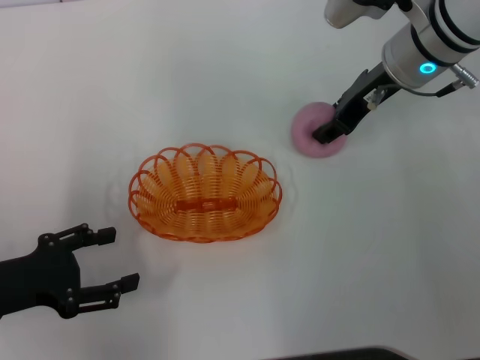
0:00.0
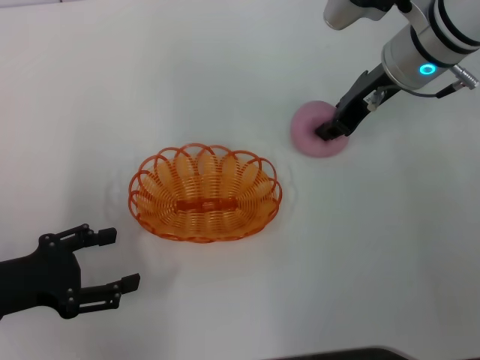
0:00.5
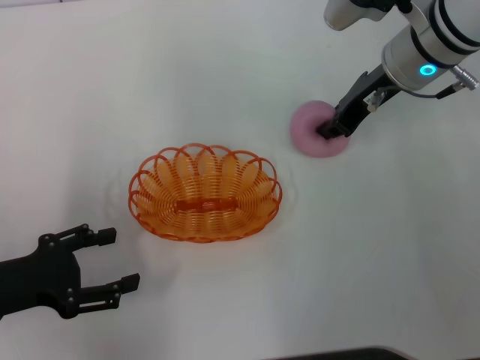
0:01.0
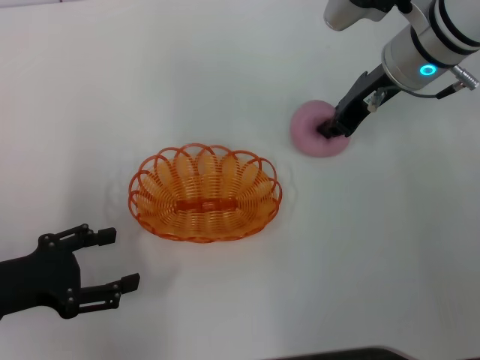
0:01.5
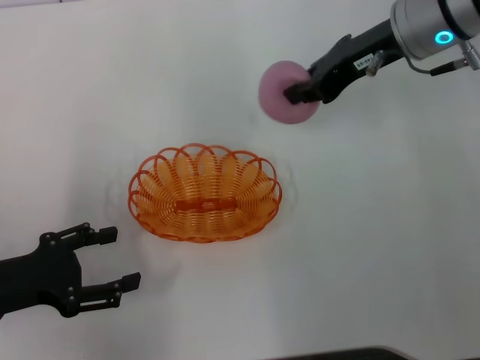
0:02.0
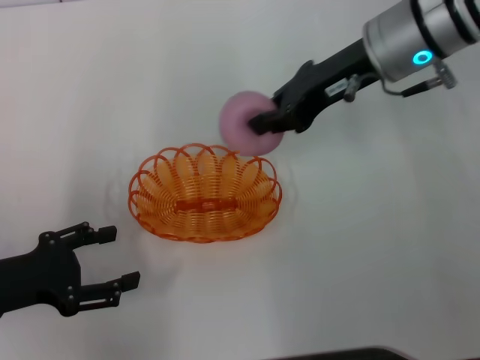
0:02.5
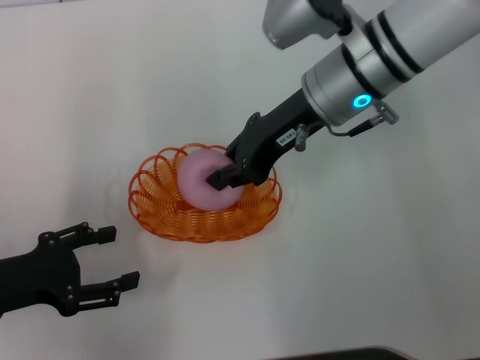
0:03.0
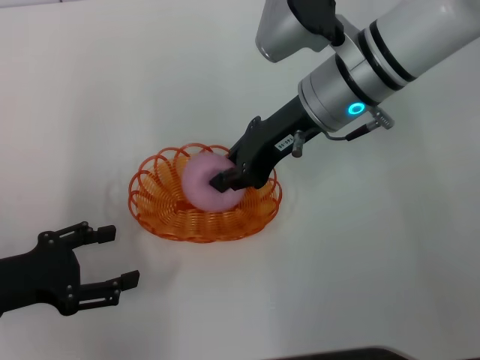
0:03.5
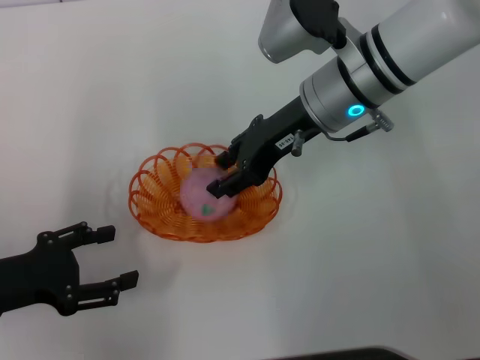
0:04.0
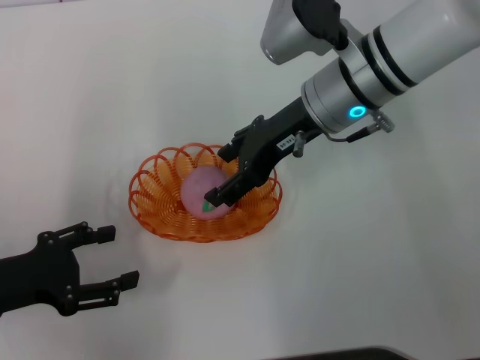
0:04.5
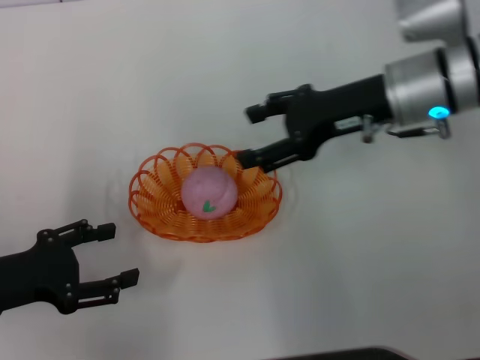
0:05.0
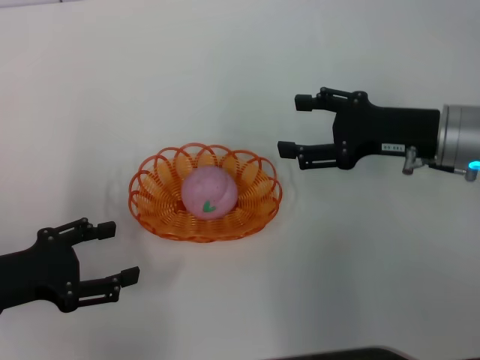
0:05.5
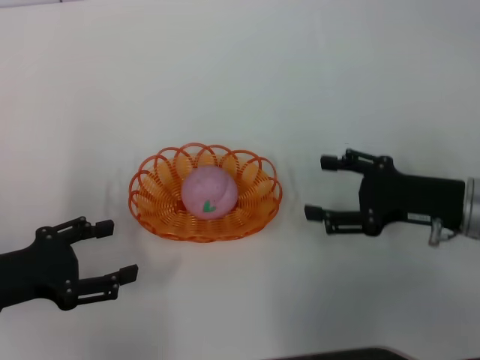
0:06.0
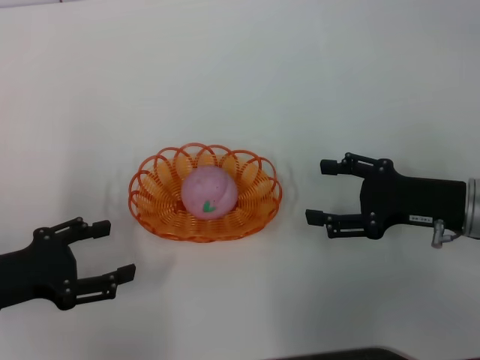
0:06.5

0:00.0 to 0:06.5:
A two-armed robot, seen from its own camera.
Step, 0:00.0 to 0:02.0: Pick up the peach with the right gripper.
Step, 0:02.5 to 0:04.5: Place the peach into the basket with the right gripper.
0:00.0 to 0:02.0: The right gripper closes its fingers.
0:02.0 to 0:04.5: The right gripper travels to the left by approximately 5 cm, and opens its fingers.
0:04.5 to 0:06.5: The right gripper moves to the right, backward and downward, approximately 20 cm.

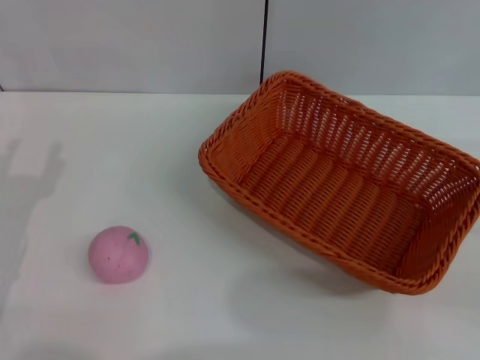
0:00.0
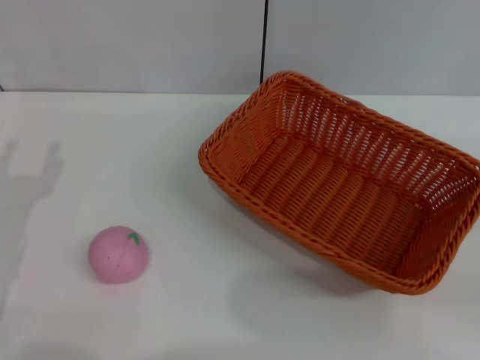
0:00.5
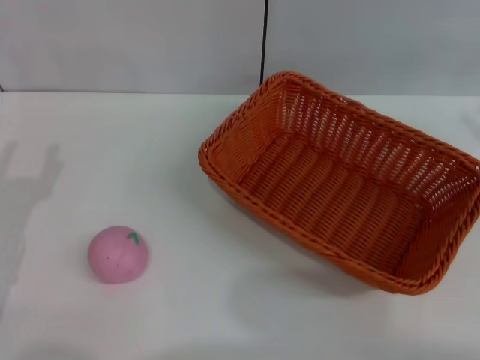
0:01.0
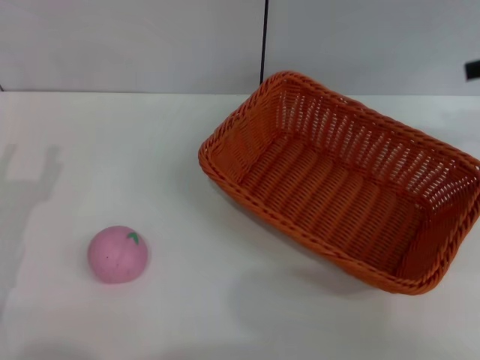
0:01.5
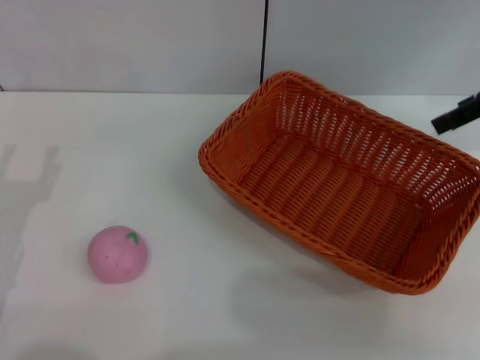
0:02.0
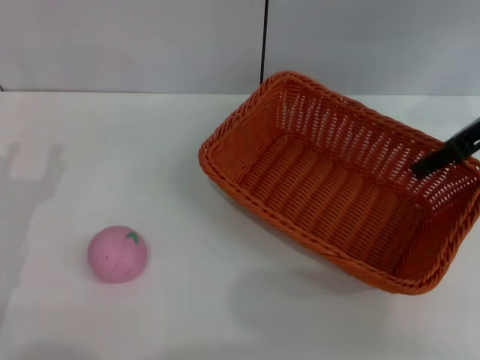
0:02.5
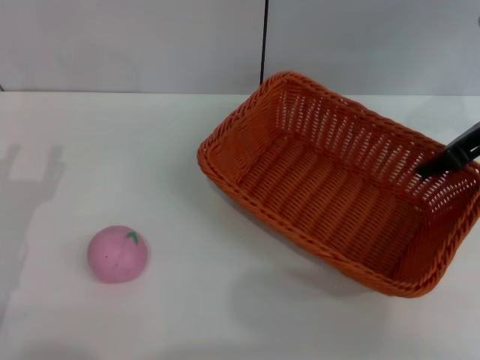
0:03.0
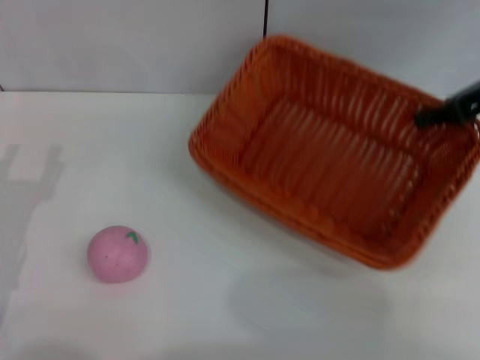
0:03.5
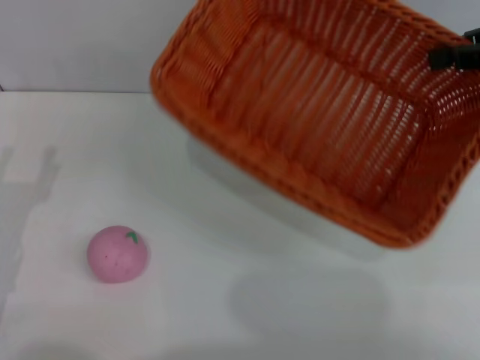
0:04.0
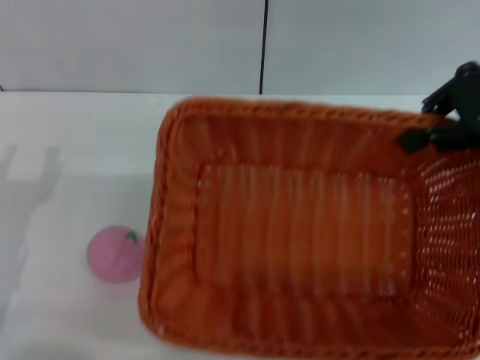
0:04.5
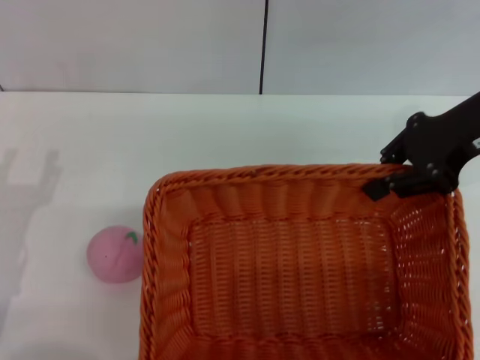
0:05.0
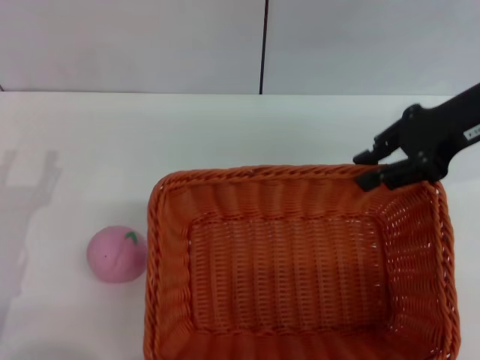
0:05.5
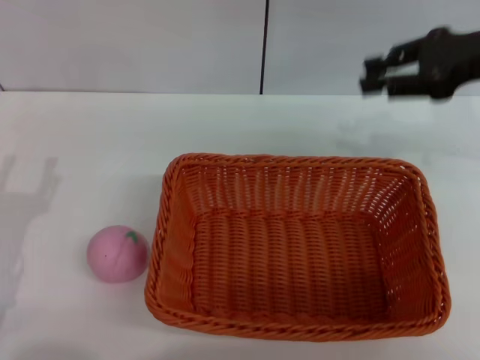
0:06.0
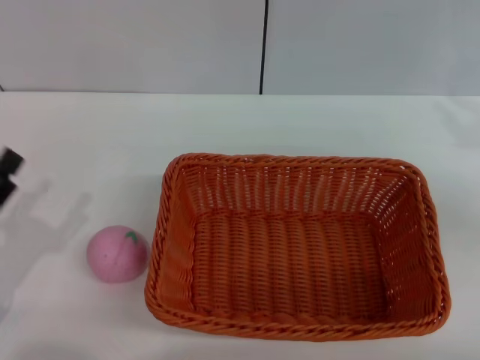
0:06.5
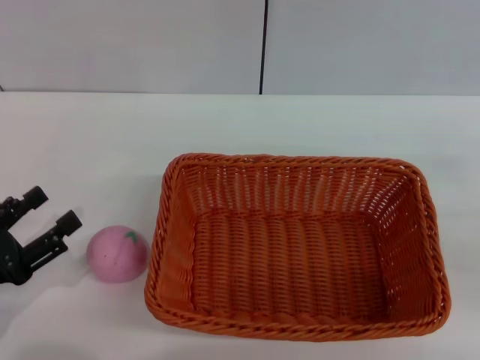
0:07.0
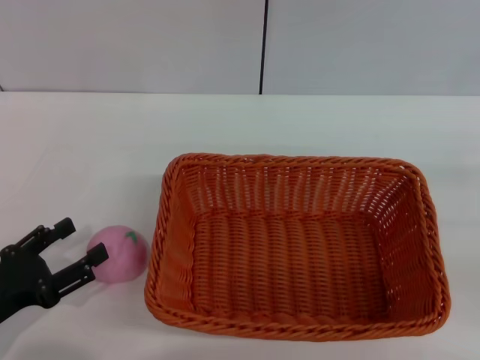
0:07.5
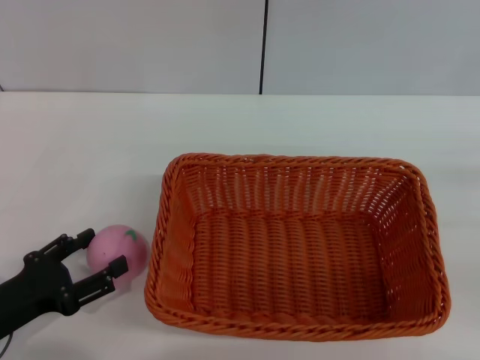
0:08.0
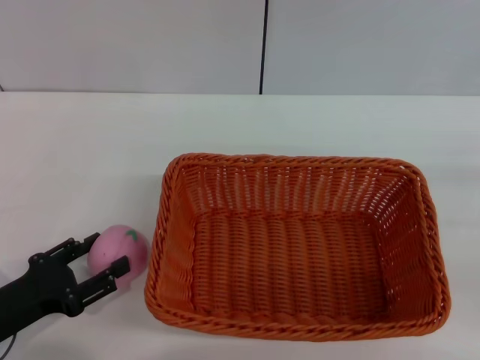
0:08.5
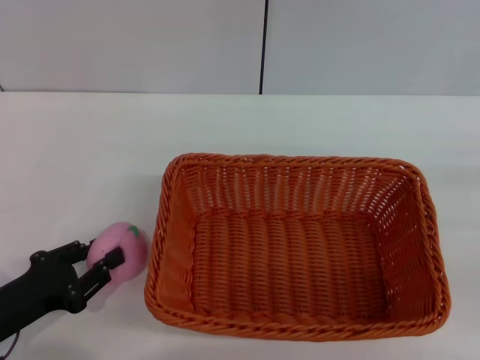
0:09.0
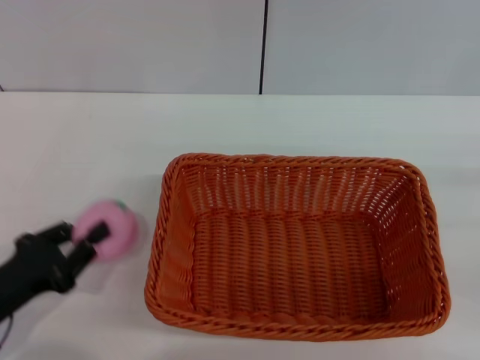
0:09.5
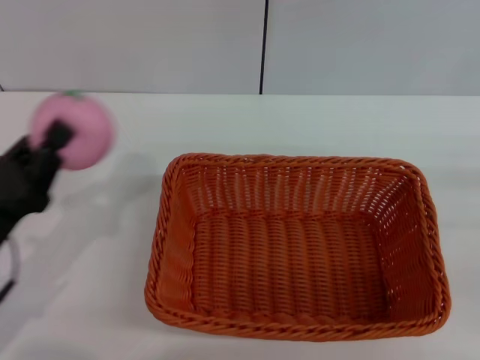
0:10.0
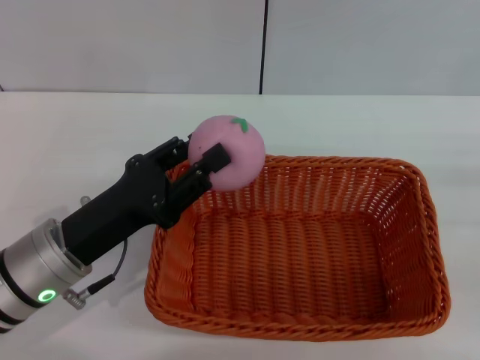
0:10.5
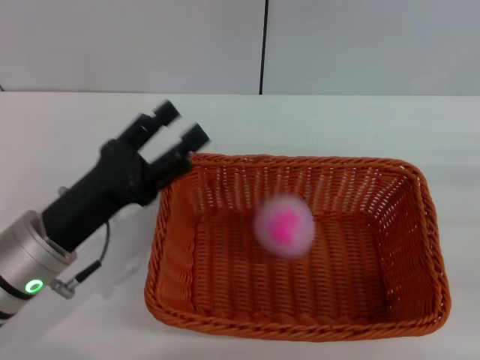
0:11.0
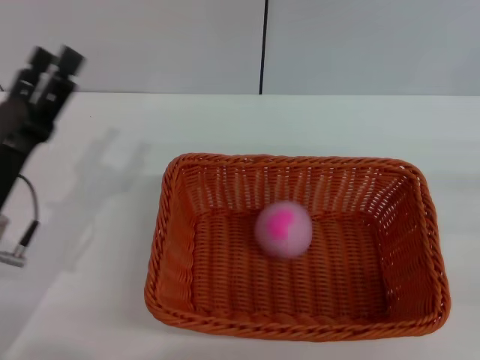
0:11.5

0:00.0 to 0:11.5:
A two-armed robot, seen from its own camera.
Step, 0:00.0 to 0:04.0: Pick up the light basket with the right gripper.
Step, 0:04.5 to 0:05.5: Place the light basket in the center of view with the right gripper.
Step, 0:06.0 to 0:09.5: Pick up the peach with the left gripper.
Step, 0:10.5 to 0:11.0: Place the peach into the basket with the left gripper.
0:00.0 to 0:02.0: The right gripper travels forward, upward and to the left by about 25 cm.
0:02.0 to 0:04.0: The right gripper reaches roughly 5 cm downward, then returns, and closes up.
0:06.0 to 0:07.5: The right gripper goes approximately 25 cm backward, to the right and downward.
0:07.5 to 0:09.5: The left gripper closes.
0:09.5 to 0:11.5: The left gripper heads forward, covering roughly 5 cm, and opens.
